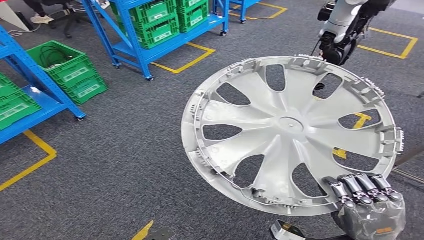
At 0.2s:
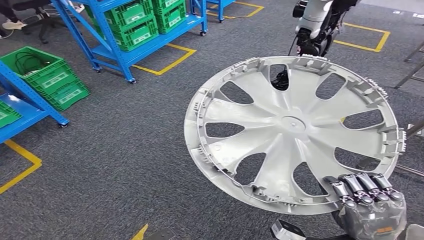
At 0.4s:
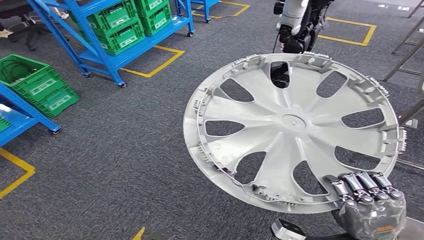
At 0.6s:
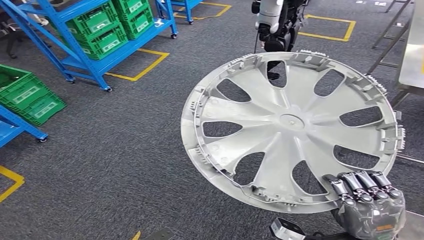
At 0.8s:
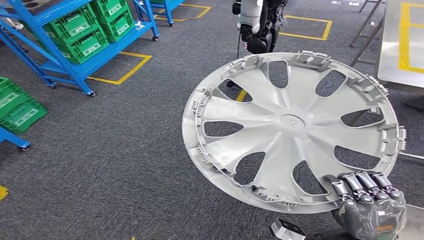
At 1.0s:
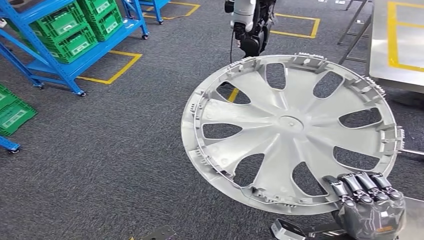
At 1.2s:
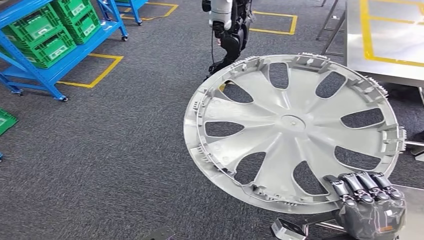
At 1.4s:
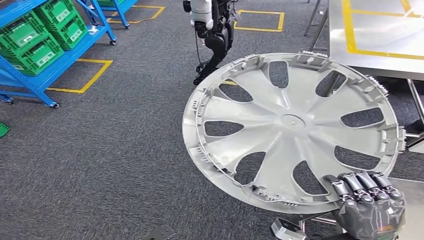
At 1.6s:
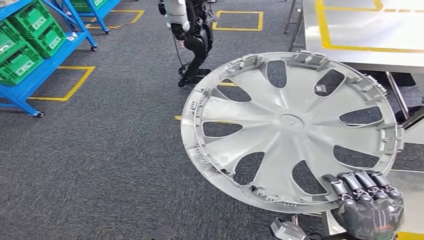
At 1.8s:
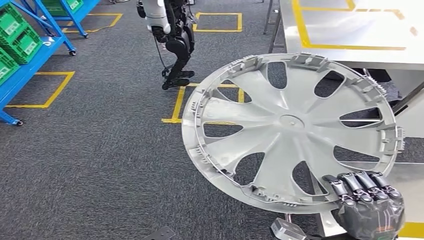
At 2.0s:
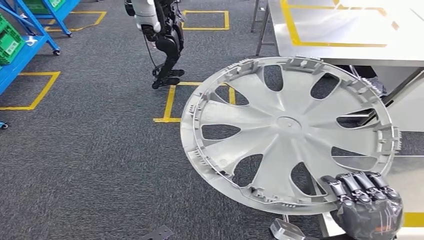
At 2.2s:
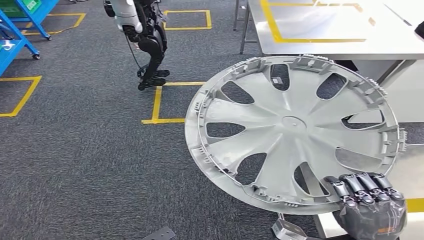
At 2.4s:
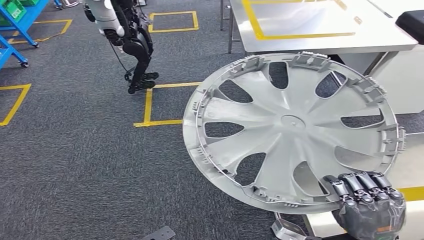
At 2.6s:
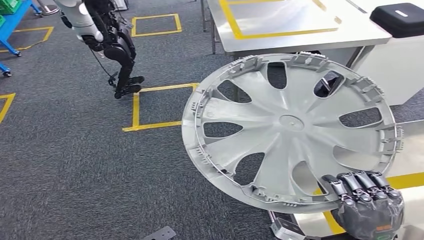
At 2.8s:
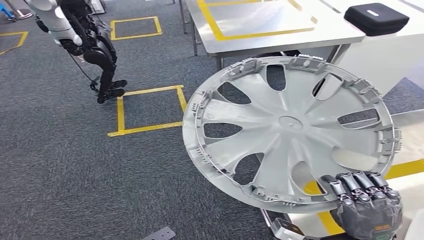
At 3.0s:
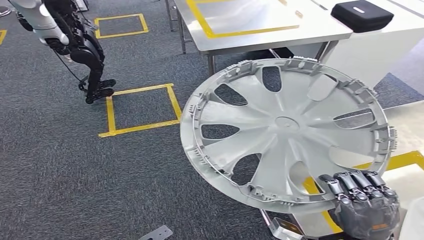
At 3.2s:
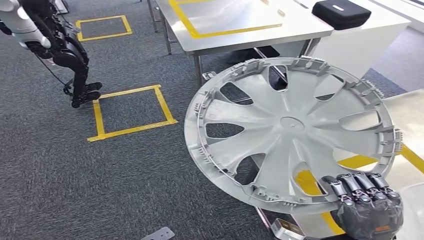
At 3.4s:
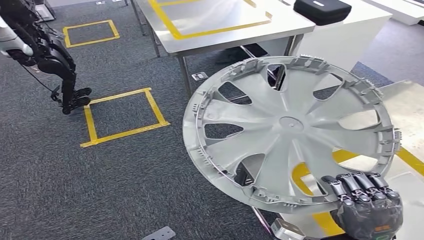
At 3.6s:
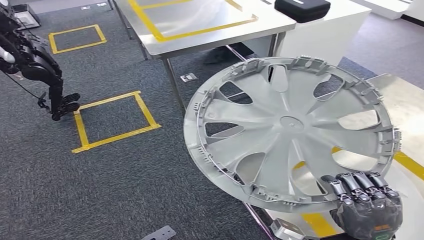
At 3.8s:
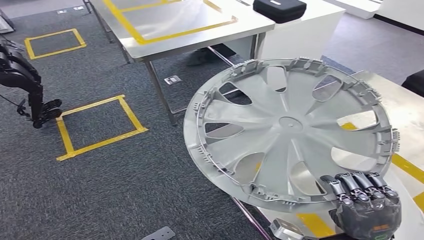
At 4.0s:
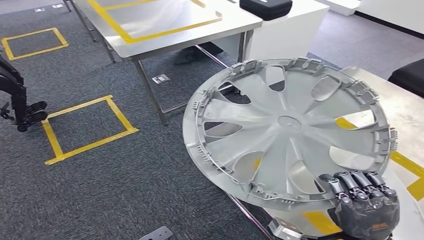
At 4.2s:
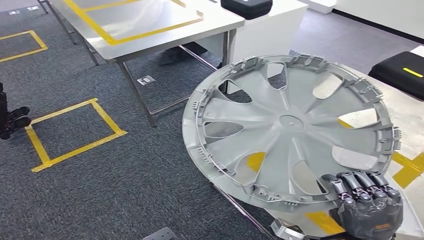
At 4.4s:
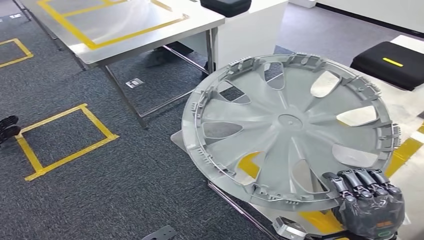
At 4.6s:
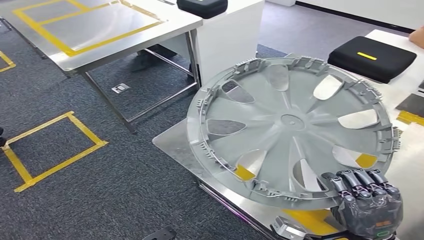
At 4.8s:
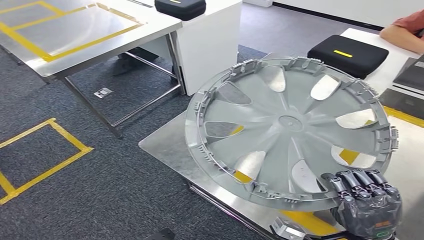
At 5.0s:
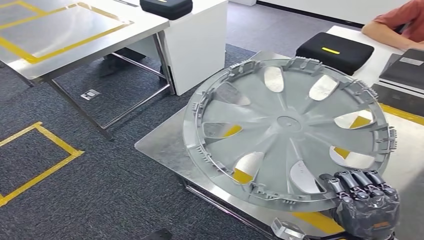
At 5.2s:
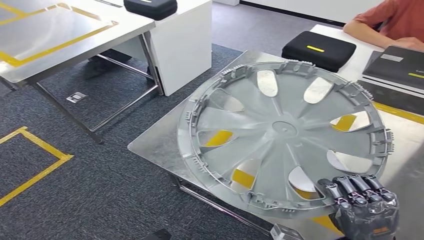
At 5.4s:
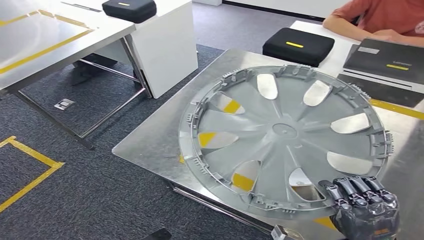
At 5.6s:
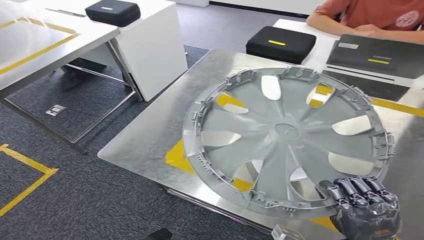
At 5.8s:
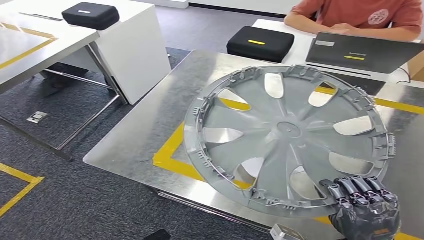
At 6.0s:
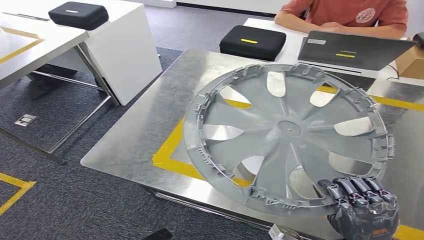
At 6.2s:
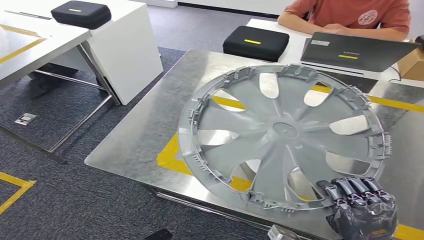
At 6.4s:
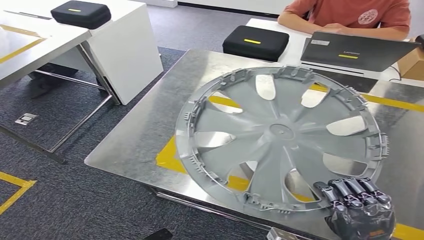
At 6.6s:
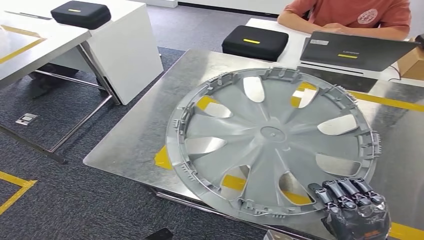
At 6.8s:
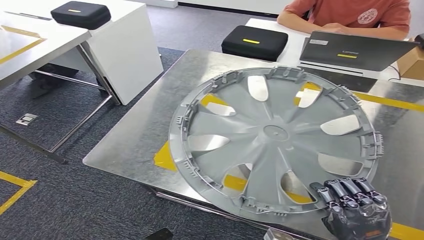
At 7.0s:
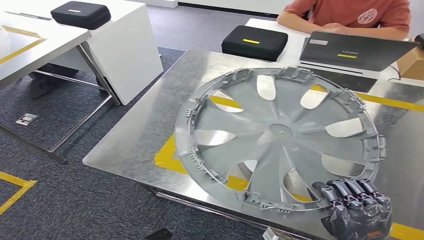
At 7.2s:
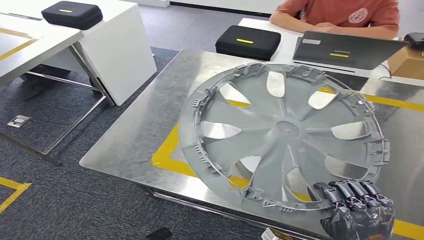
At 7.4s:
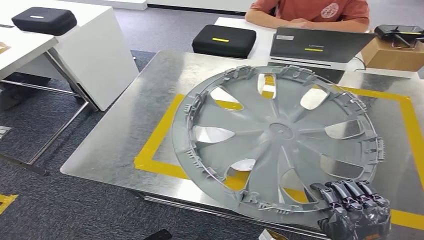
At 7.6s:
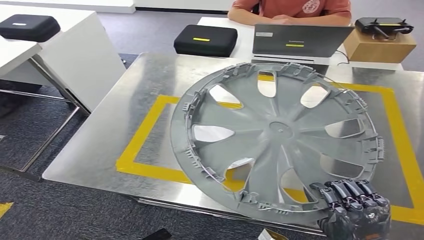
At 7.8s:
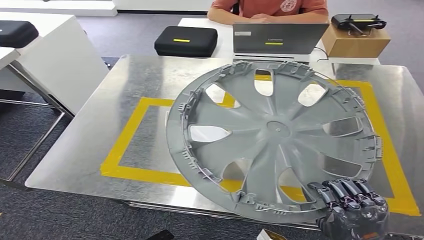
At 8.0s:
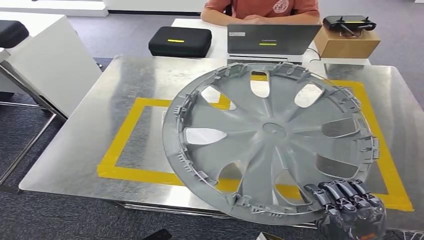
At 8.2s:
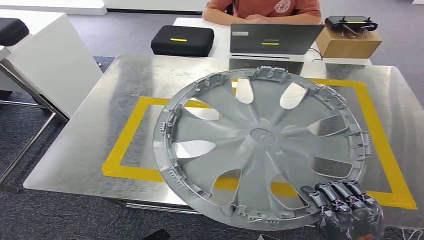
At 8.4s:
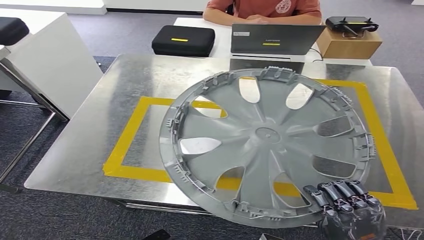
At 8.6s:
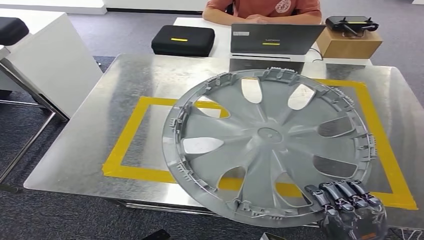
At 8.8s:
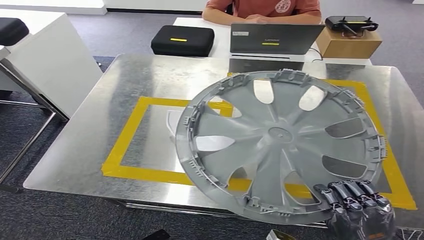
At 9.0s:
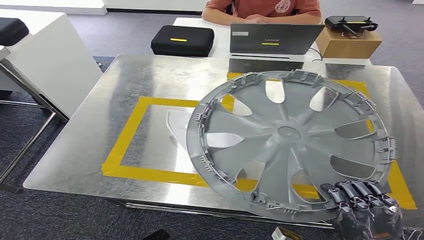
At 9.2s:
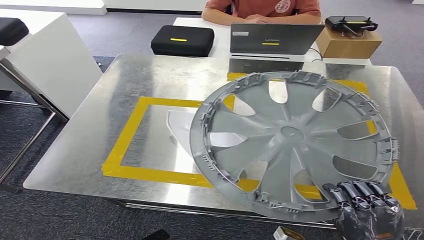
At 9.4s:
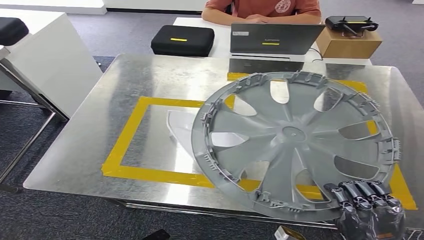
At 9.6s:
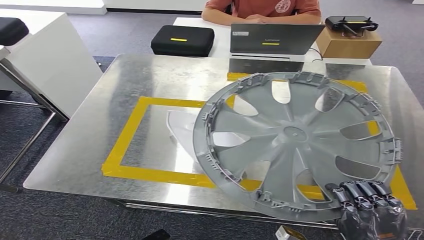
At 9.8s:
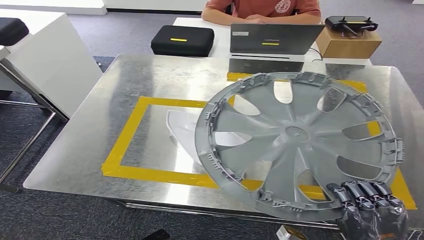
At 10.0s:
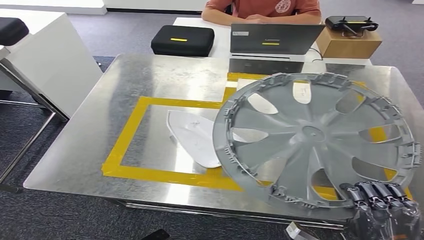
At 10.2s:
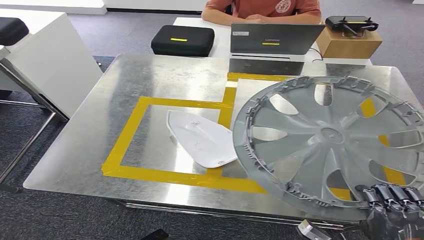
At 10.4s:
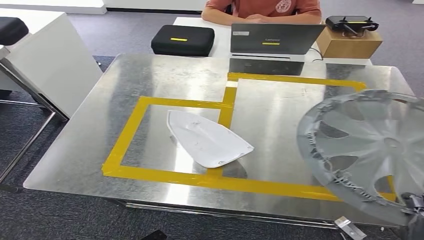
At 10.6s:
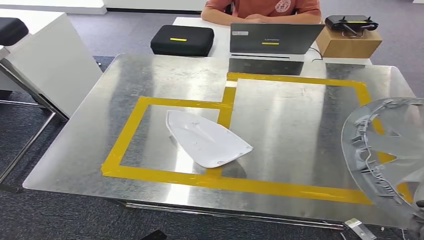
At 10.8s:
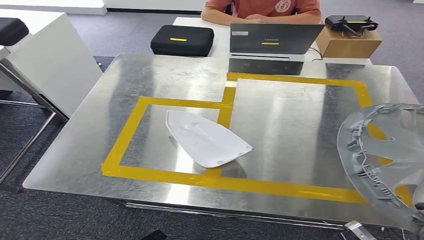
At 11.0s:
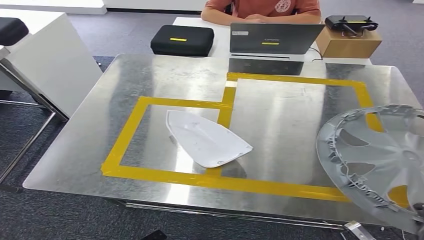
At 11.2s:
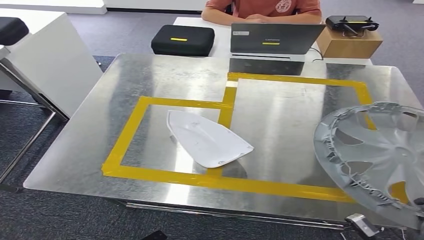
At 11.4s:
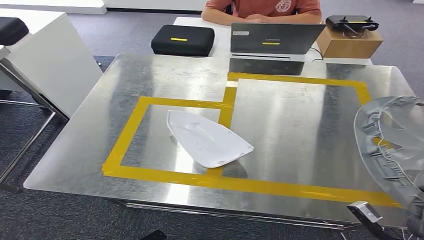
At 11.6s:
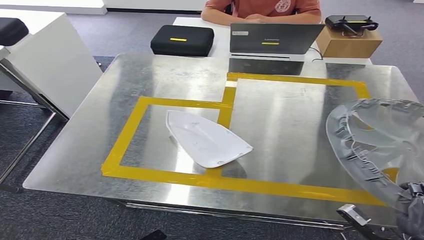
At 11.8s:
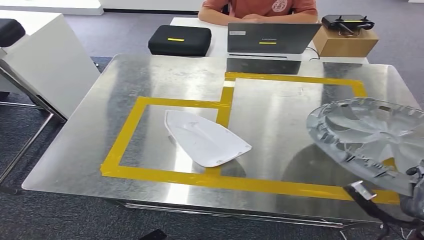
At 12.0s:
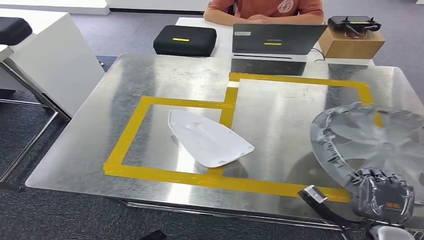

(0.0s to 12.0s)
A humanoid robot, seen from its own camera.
Step, 0.0s - 5.8s: Bring the small component to the front of the workbench.
9.0s - 10.4s: The right hand heads to the right, covering about 10 cm.
10.4s - 12.0s: The right hand heads forward, covering roughly 5 cm.

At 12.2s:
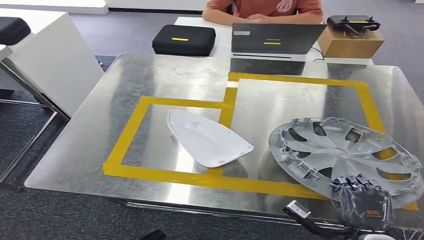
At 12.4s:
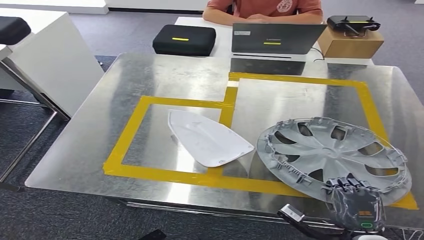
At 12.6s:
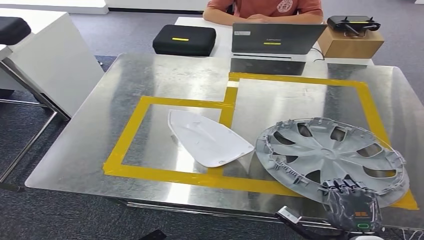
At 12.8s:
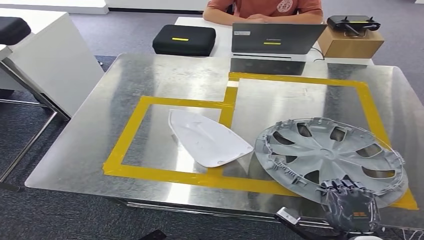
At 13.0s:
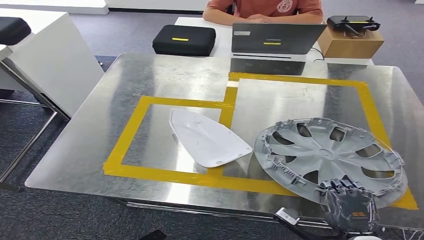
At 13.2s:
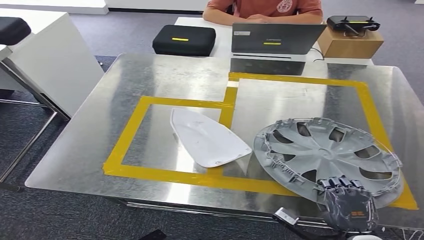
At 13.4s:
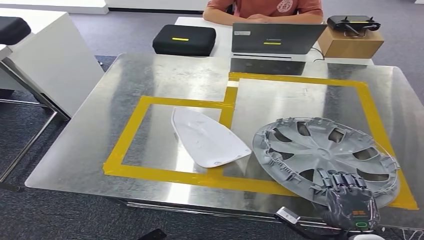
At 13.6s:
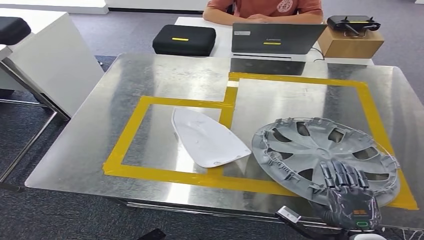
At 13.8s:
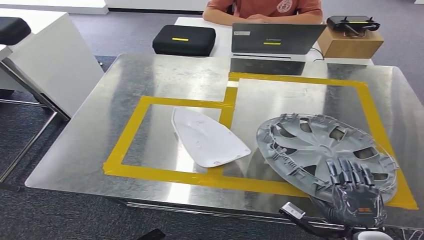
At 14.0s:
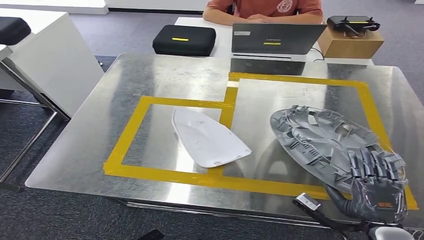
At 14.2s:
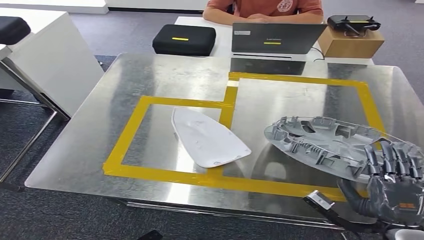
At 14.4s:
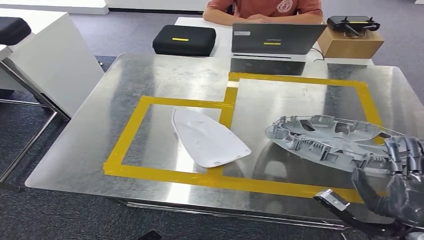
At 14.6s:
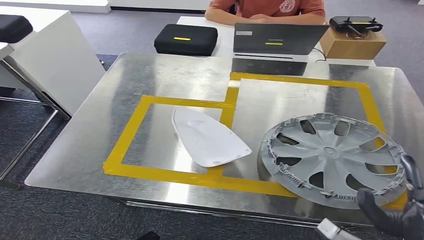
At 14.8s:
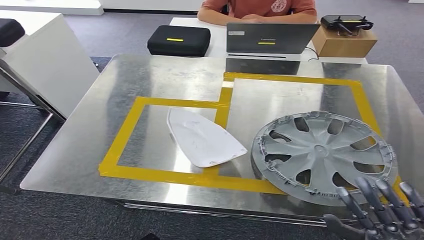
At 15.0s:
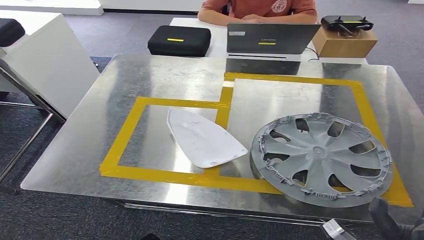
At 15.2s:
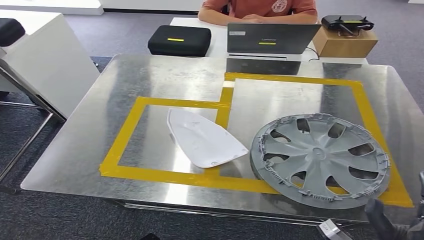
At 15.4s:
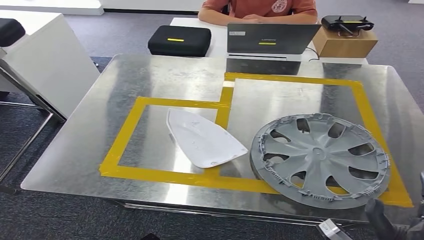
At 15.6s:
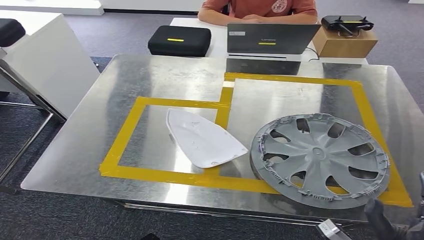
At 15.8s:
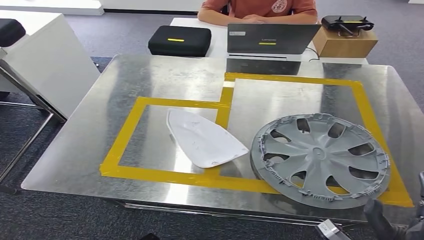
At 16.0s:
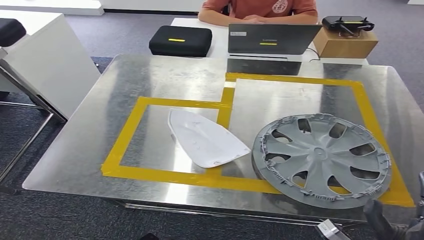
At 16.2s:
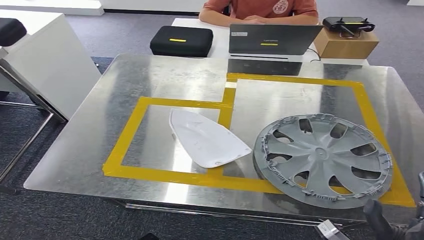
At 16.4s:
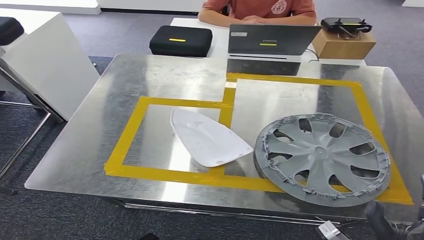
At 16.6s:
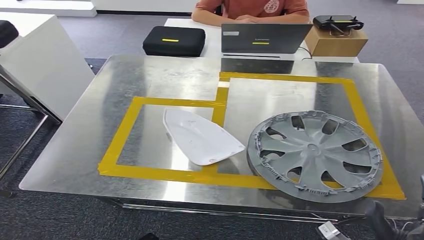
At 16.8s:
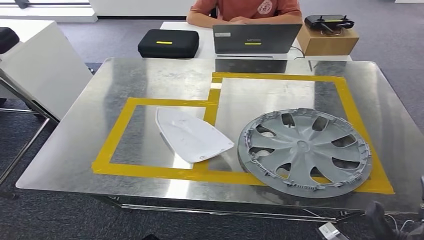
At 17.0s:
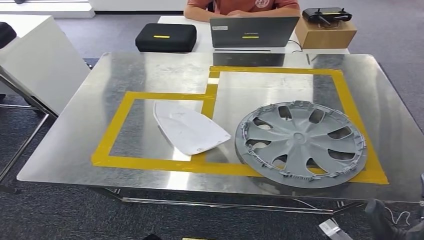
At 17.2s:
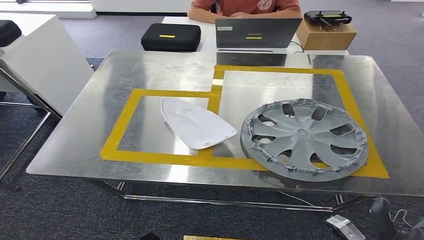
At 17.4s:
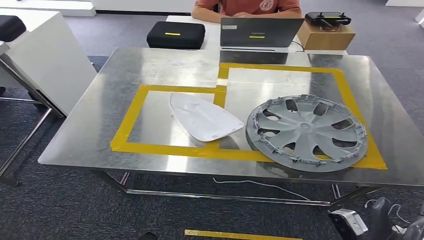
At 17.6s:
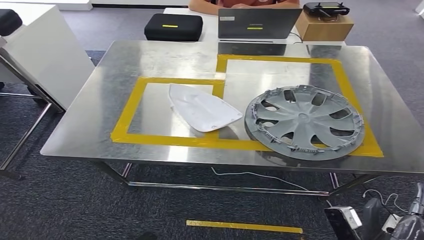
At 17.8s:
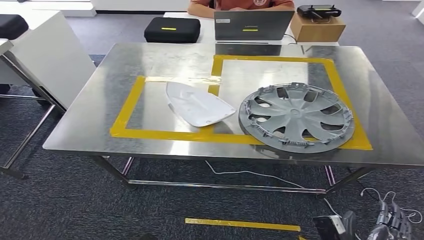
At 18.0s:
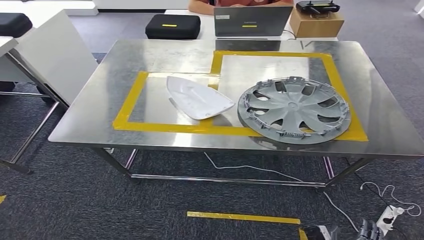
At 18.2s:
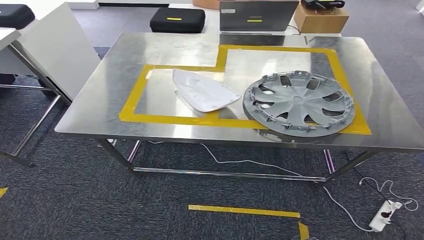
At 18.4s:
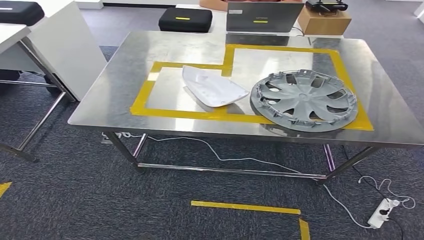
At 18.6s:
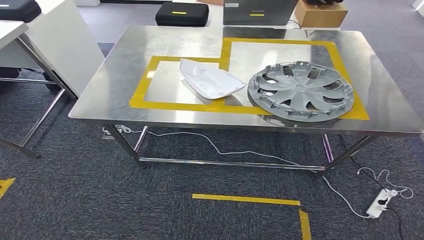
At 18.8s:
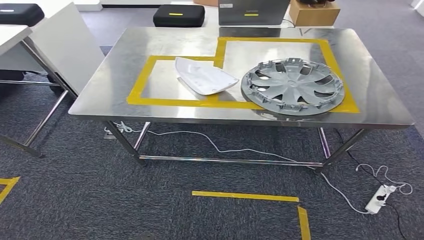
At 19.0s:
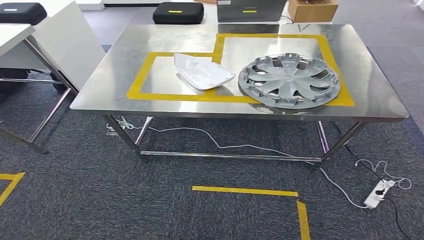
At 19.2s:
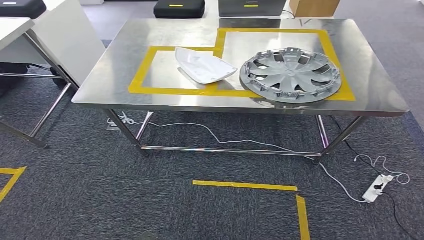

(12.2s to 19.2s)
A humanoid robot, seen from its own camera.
Step, 12.2s - 16.4s: Insert the small component into the corresponding slot on the workbench.
12.2s - 13.6s: There are only small adjustments of the hands.
13.6s - 15.0s: The right hand travels upward by about 10 cm.
15.0s - 16.4s: There are only small adjustments of the hands.
